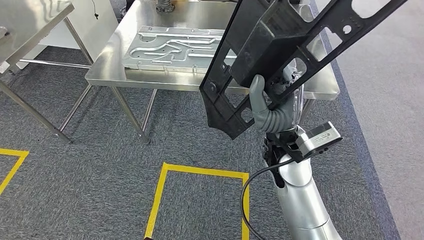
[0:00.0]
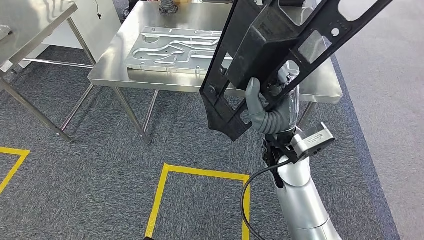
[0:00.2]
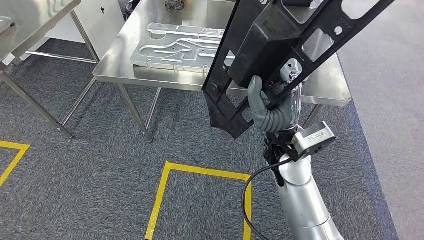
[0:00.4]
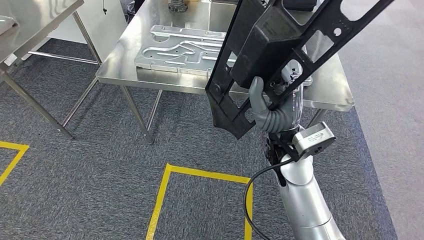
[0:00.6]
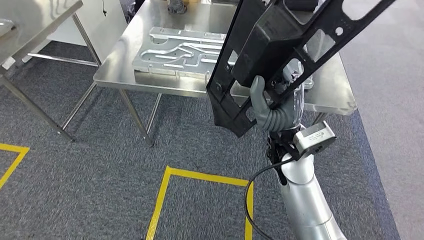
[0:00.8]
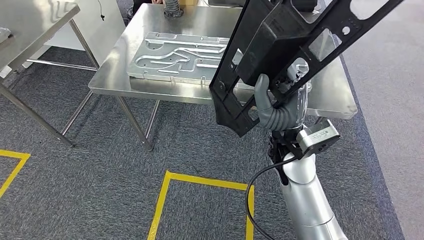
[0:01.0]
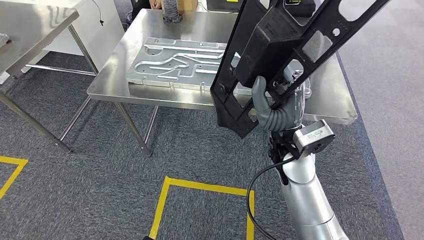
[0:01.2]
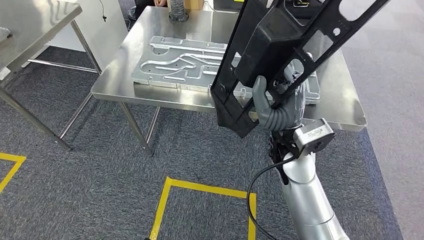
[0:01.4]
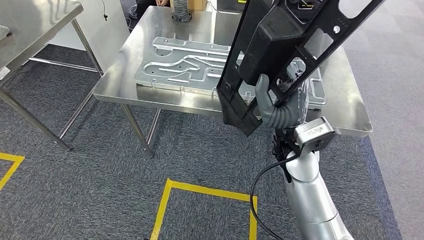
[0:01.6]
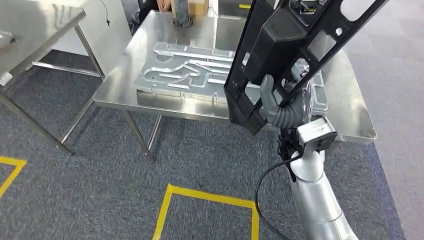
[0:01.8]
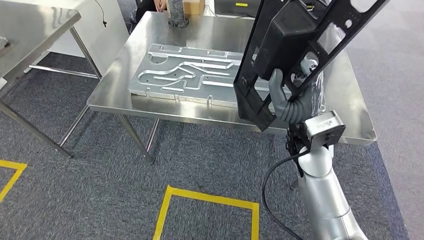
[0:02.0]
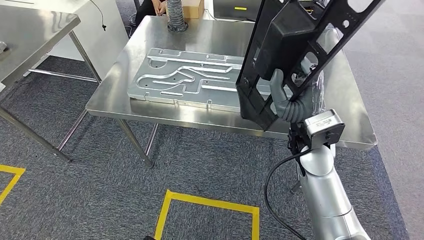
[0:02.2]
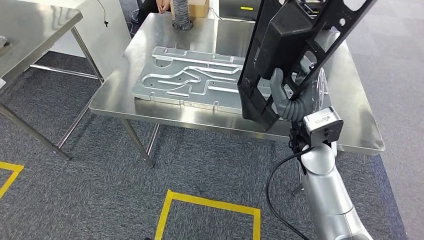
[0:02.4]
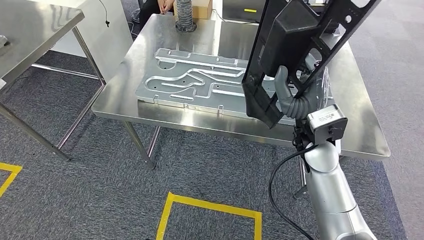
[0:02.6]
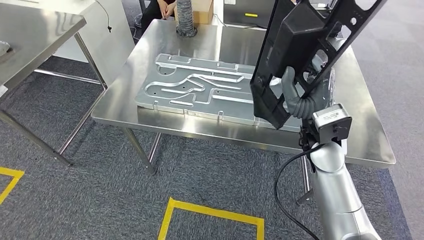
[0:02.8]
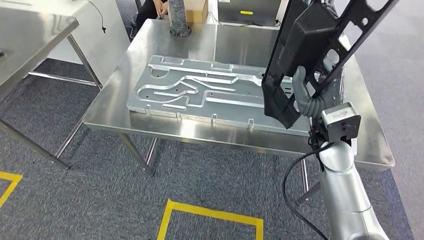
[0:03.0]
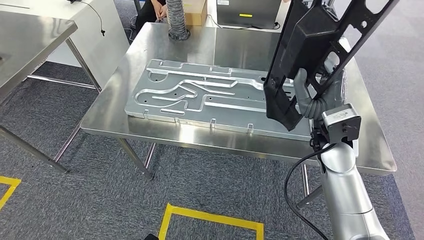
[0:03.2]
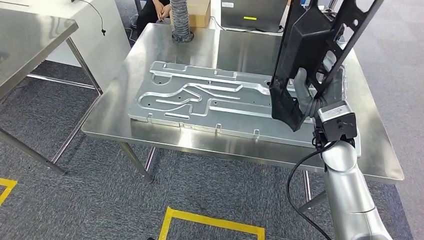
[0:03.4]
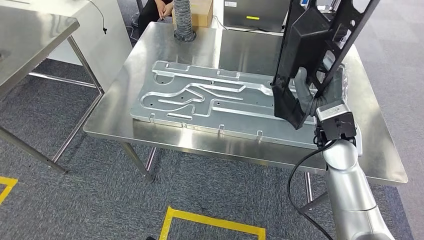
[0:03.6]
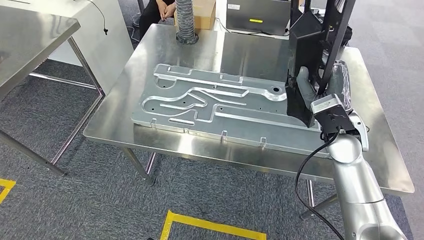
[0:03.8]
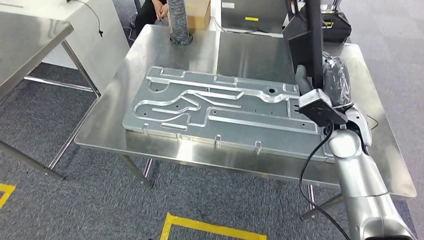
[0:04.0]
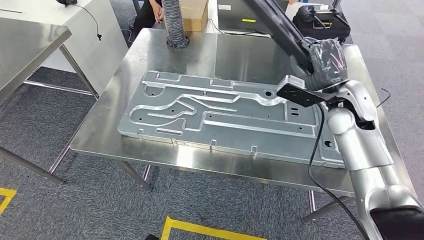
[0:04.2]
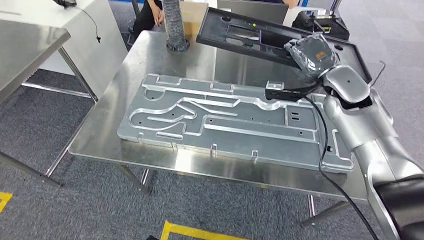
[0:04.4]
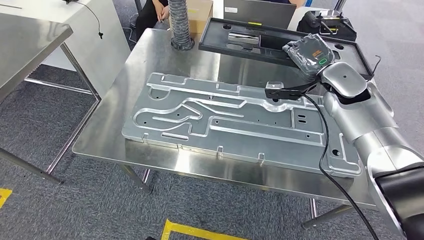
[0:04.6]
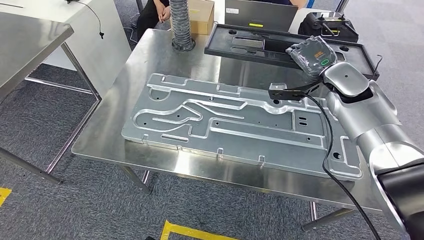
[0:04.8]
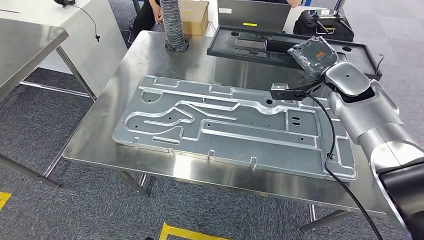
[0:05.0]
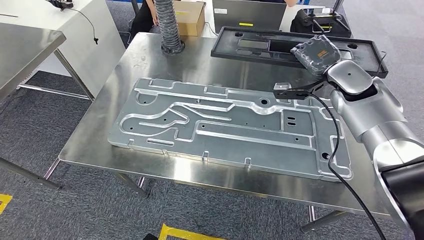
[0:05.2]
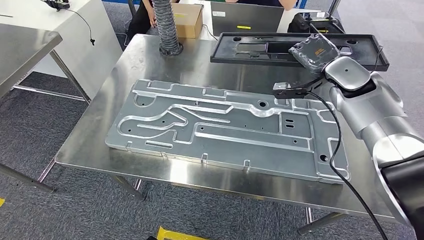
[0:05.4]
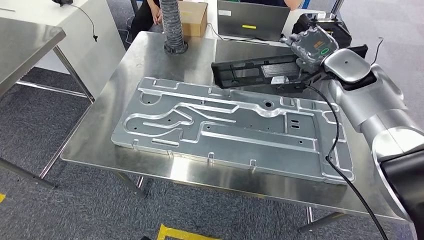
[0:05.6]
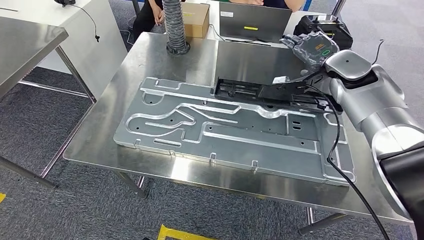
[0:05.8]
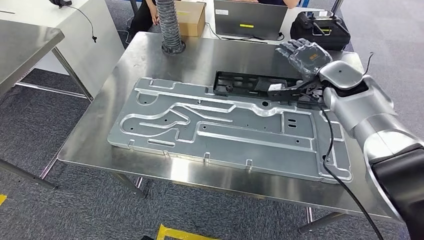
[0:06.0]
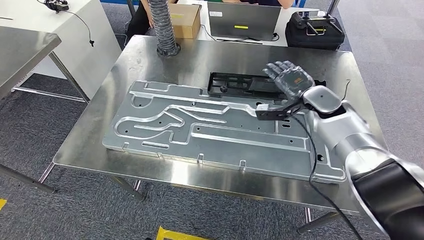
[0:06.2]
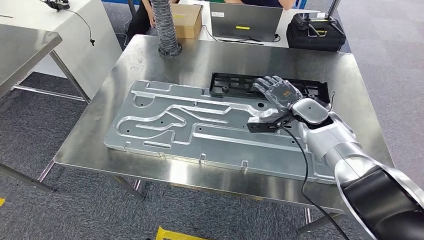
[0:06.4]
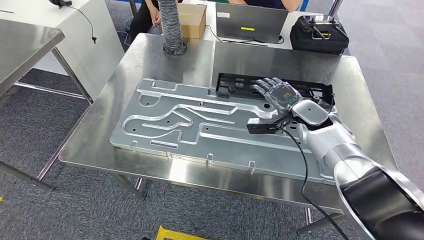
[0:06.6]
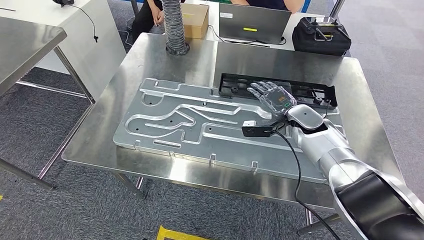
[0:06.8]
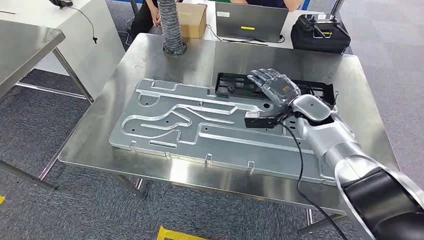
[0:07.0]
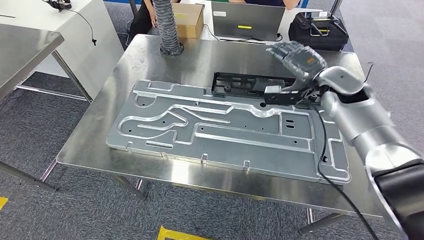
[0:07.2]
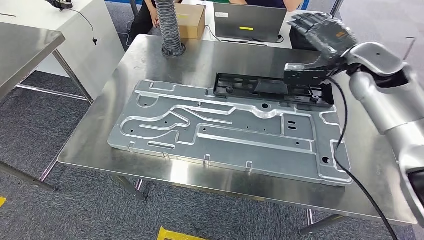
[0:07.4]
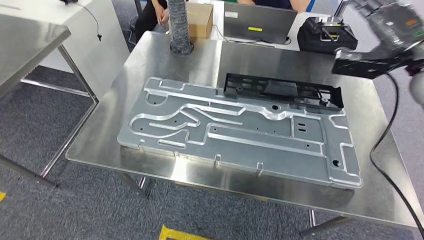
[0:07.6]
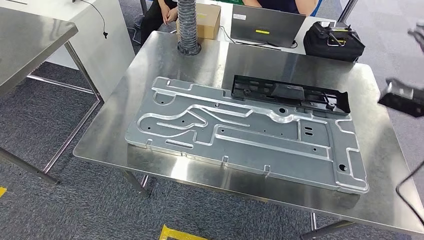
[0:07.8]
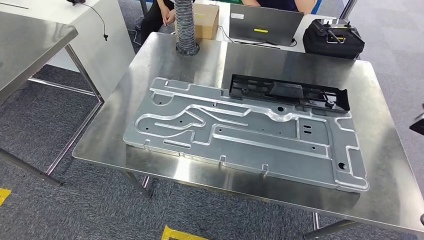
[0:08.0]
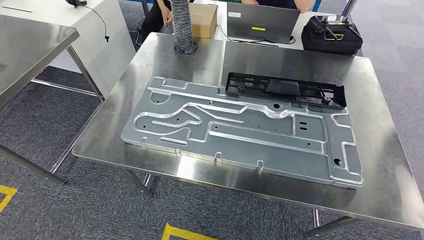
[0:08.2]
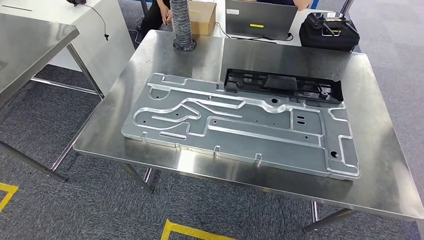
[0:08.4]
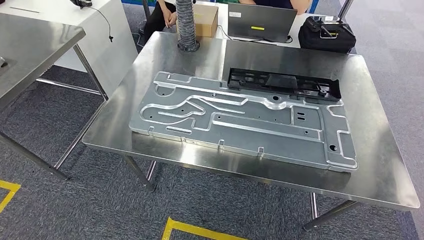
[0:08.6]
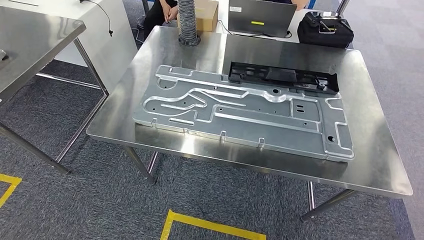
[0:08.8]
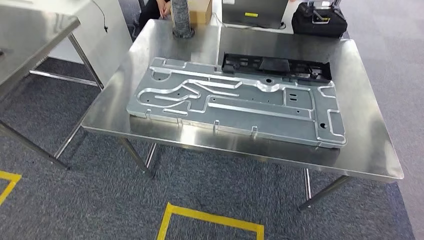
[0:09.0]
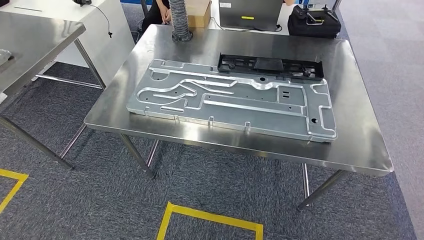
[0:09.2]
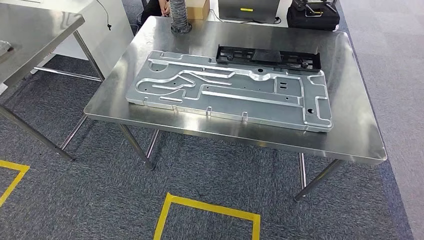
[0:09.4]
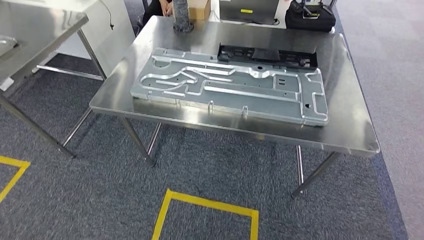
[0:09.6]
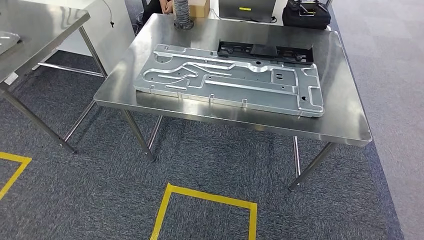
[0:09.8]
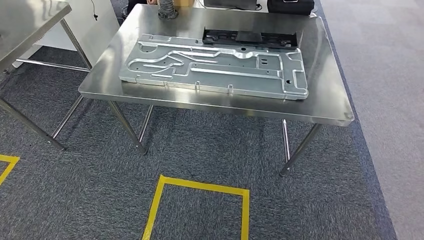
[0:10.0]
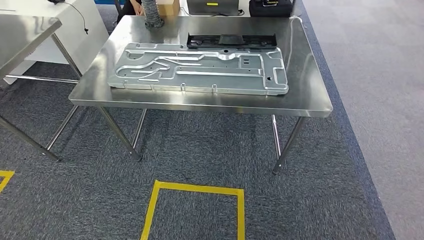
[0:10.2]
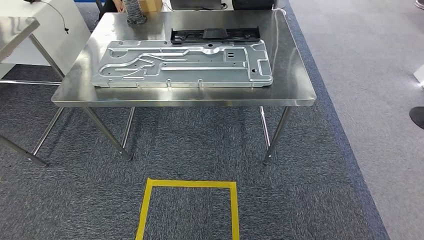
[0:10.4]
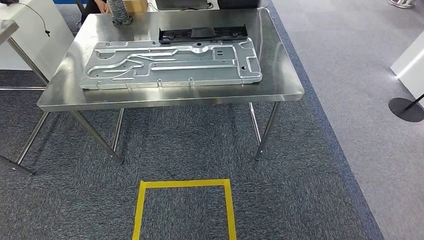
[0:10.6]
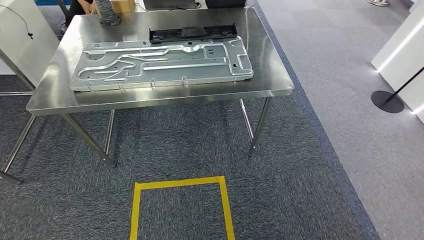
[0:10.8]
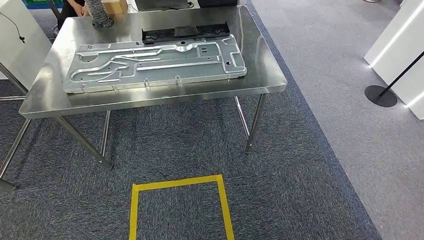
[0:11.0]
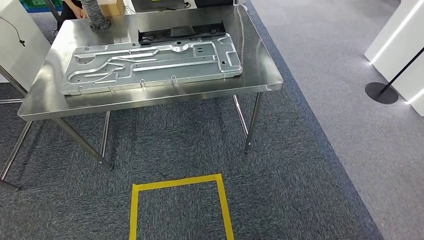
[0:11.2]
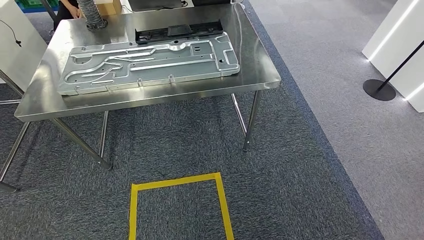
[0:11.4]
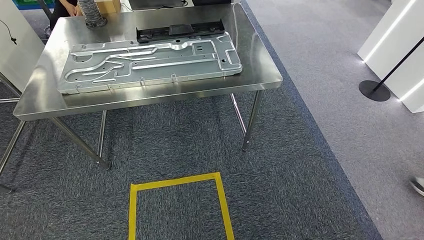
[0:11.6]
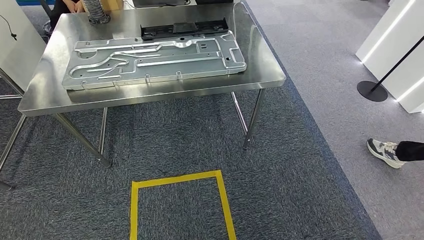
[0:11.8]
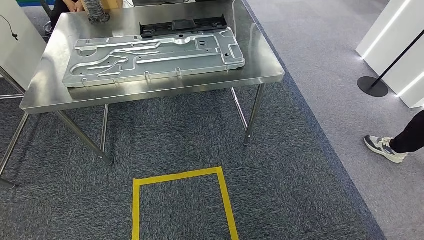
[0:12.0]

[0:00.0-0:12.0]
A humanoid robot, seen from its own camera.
Step, 0:00.0 to 0:04.2: Move the large material to the workbench.
Step, 0:04.4 to 0:07.8: Insert the large material into the corresponding slot on the workbench.

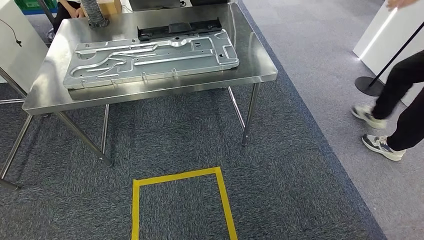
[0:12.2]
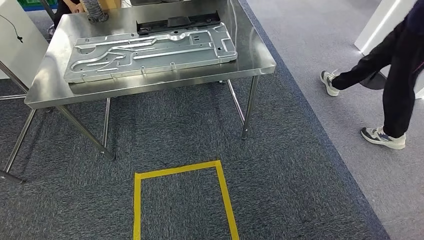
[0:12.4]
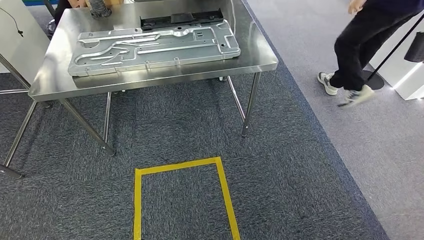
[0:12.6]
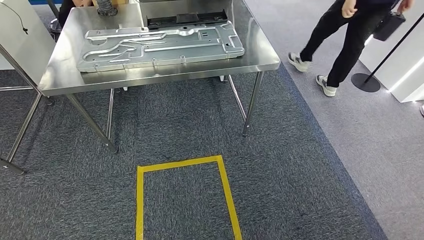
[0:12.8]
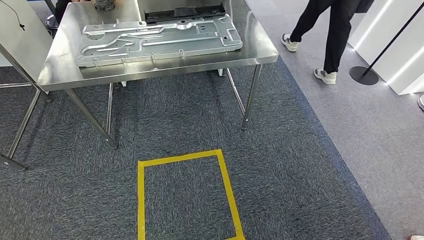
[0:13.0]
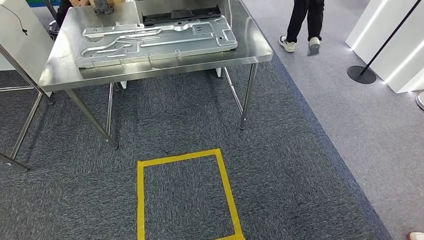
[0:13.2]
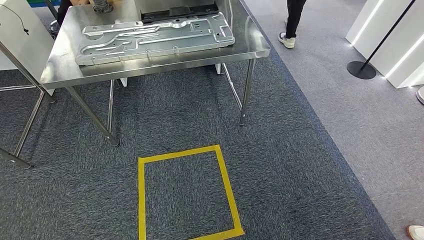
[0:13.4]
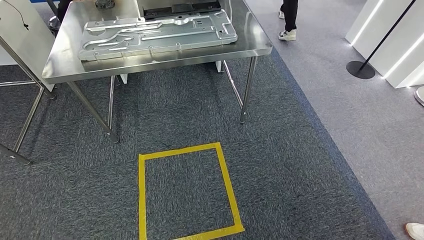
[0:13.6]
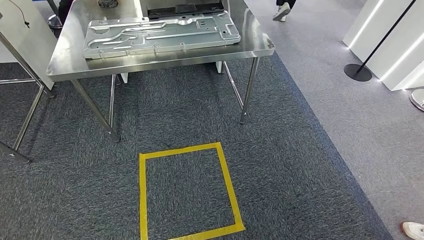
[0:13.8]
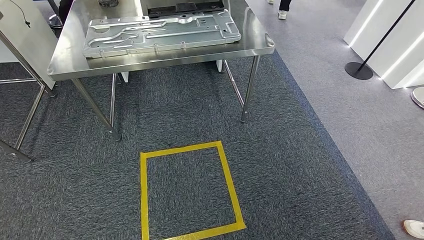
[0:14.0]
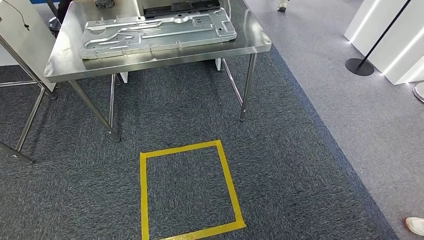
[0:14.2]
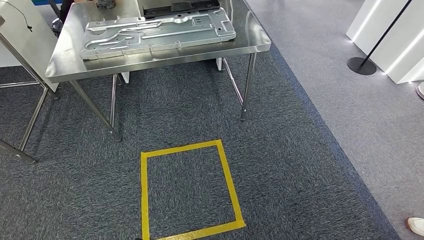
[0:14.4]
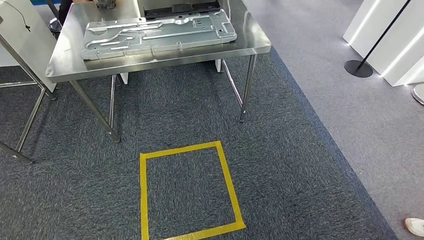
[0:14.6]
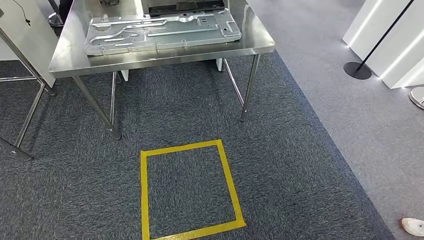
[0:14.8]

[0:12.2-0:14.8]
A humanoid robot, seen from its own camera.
Step, 0:12.2 to 0:14.6: Return to the initial position at the shelf.
0:13.4 to 0:14.8: The hands move only a little.
